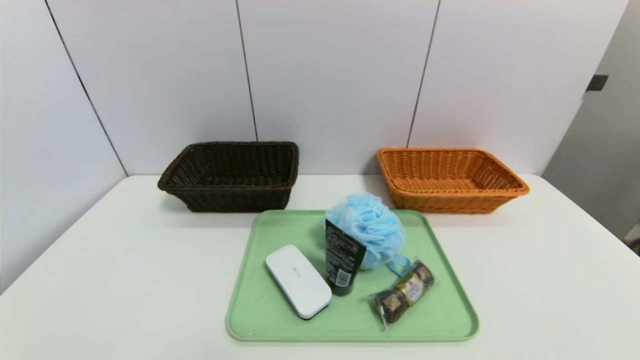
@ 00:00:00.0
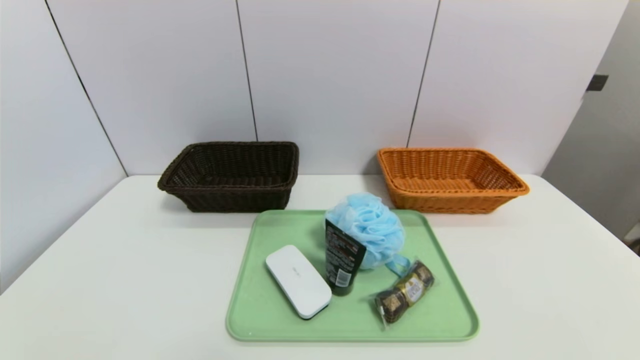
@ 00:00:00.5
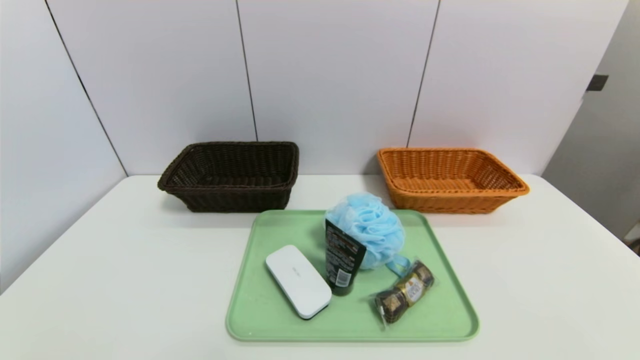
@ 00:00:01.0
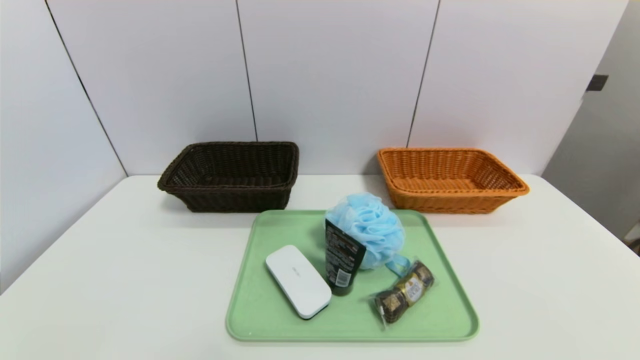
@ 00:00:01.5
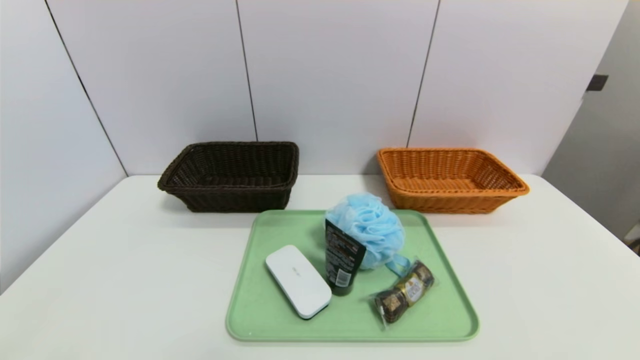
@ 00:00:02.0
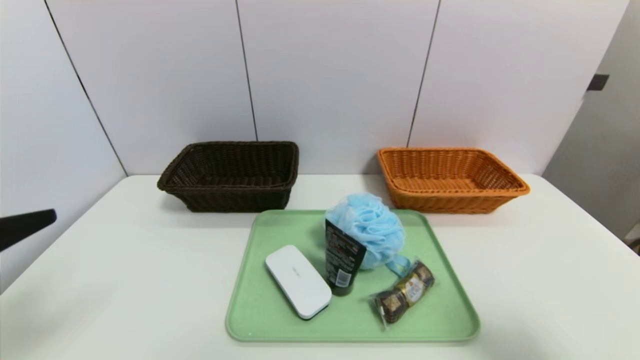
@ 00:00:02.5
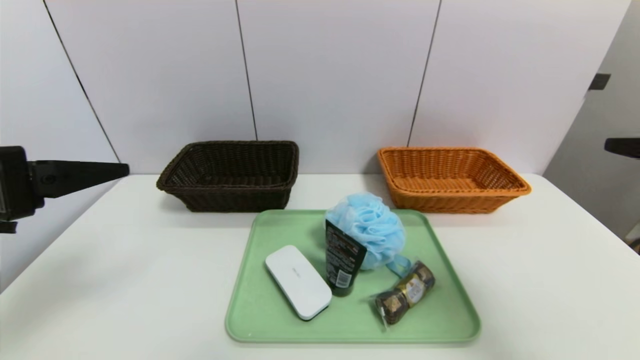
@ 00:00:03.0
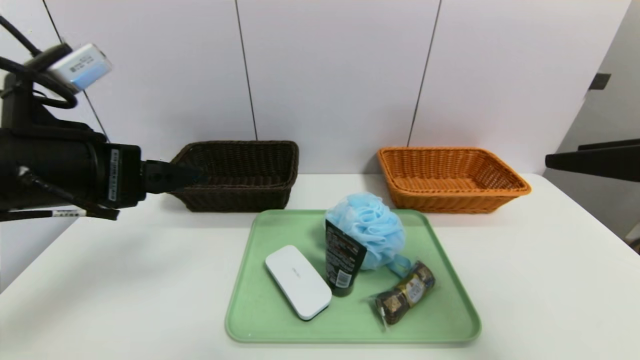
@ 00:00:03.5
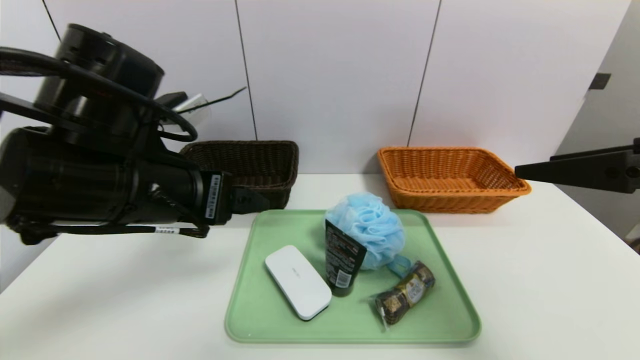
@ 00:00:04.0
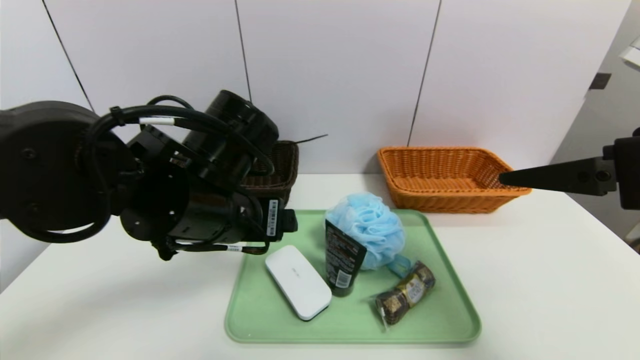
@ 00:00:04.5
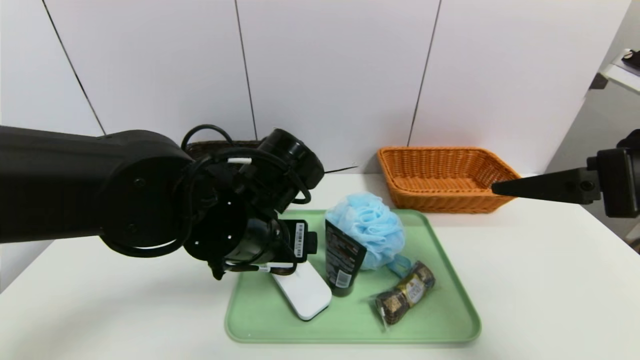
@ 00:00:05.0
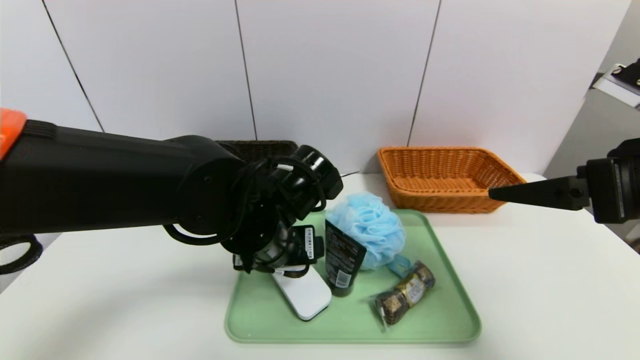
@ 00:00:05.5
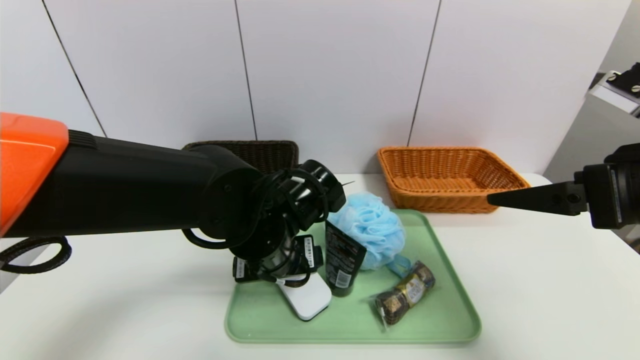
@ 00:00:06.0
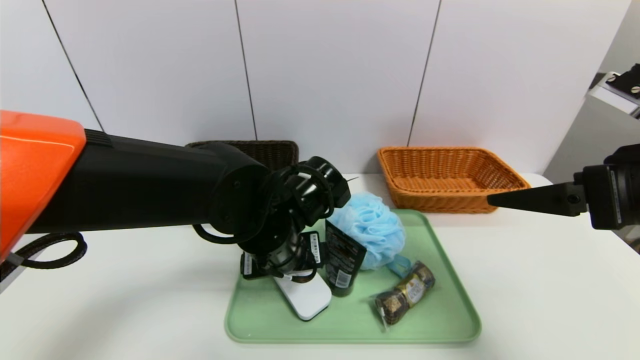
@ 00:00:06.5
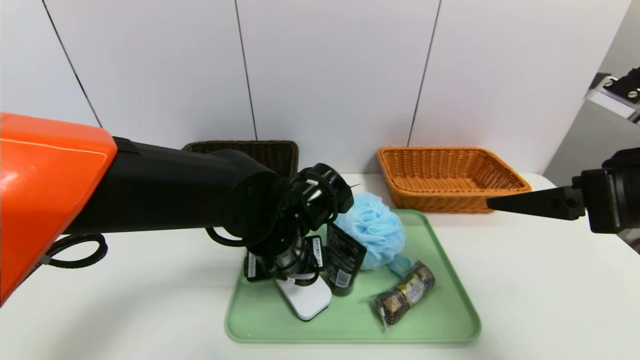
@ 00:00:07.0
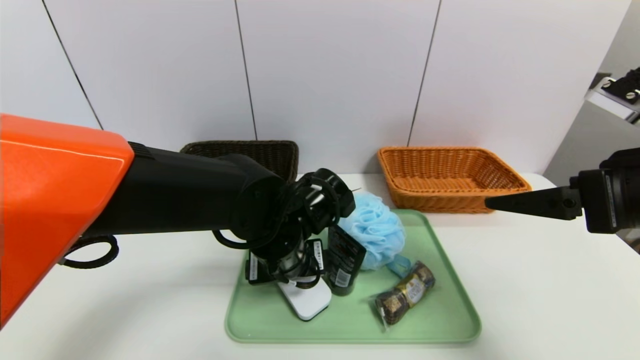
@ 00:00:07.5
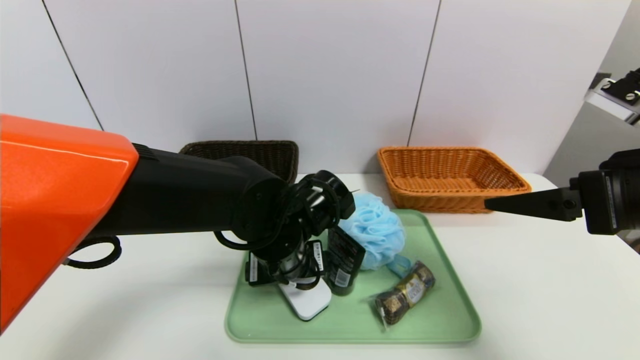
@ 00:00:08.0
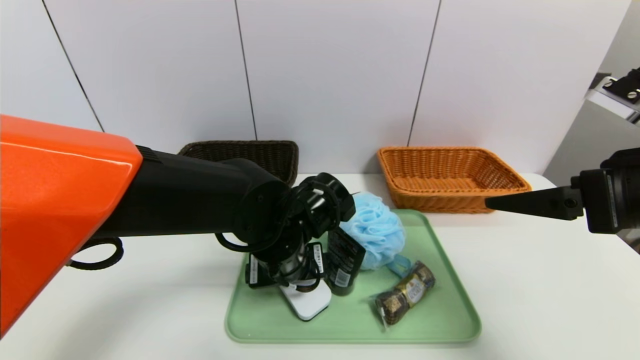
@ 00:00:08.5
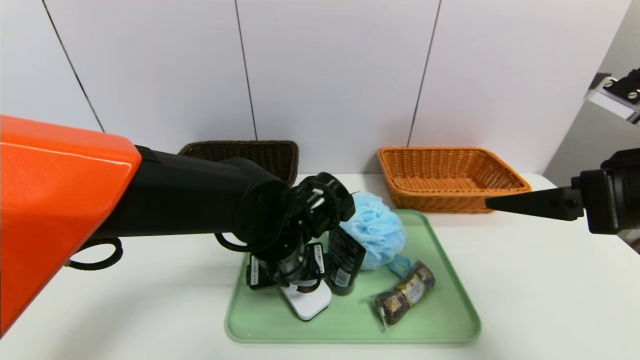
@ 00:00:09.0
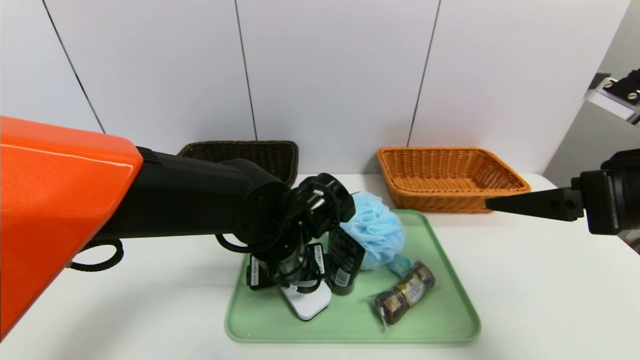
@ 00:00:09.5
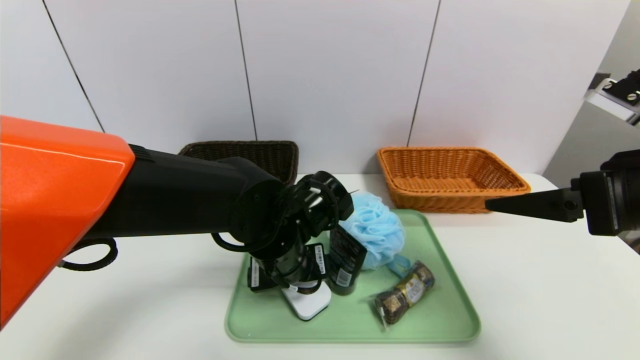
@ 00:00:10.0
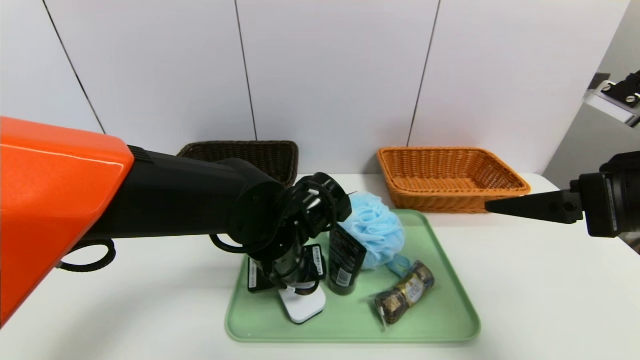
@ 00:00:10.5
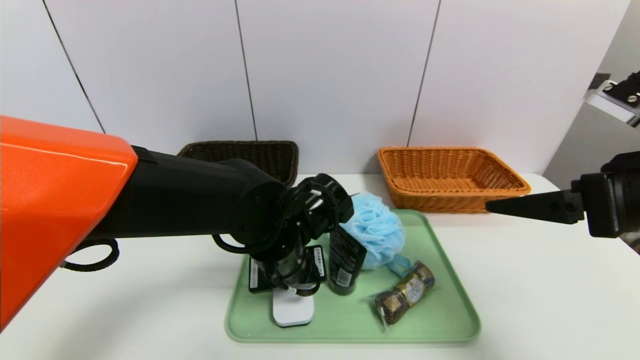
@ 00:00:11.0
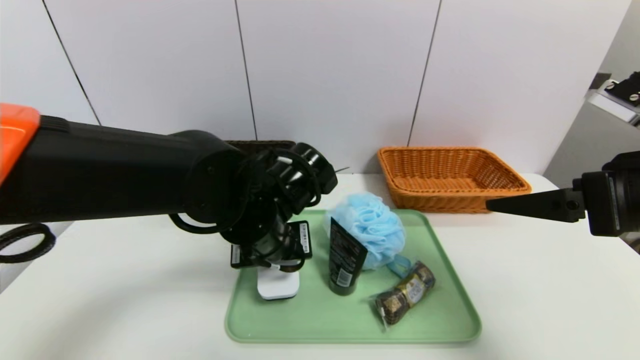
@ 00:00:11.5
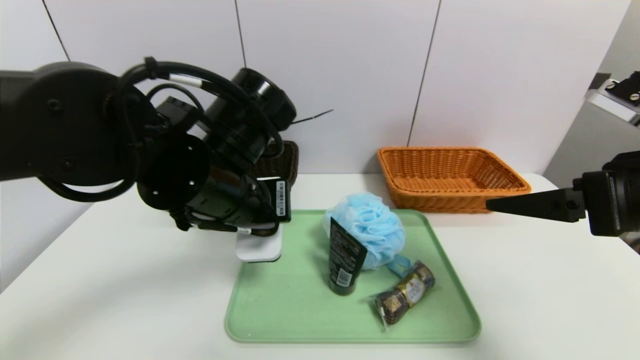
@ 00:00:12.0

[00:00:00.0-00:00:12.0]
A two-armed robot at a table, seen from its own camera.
Task of the whole recording: place the food in the right basket with the right gripper, and place the non food items in the left basket with the left gripper.
00:00:02.0 to 00:00:04.0: The right gripper travels forward and upward by roughly 20 cm. Meanwhile the left gripper travels forward and to the right by some 25 cm.
00:00:04.0 to 00:00:06.0: The left gripper shifts some 15 cm to the right and downward.
00:00:06.0 to 00:00:10.0: The grippers move only a little.
00:00:10.0 to 00:00:12.0: The left gripper goes some 10 cm upward and to the left, and closes up.

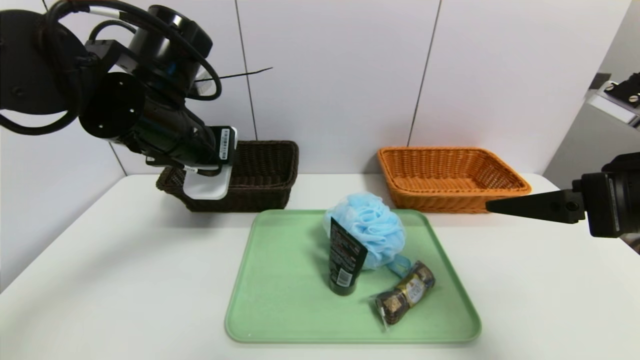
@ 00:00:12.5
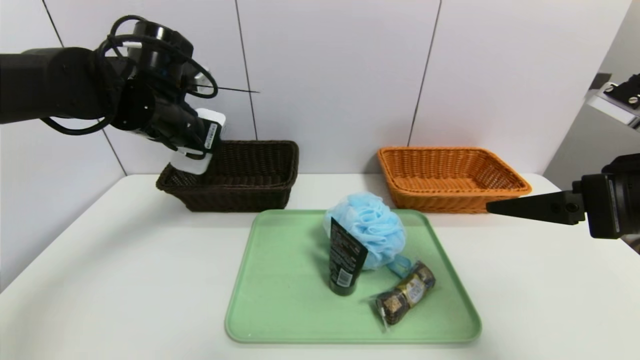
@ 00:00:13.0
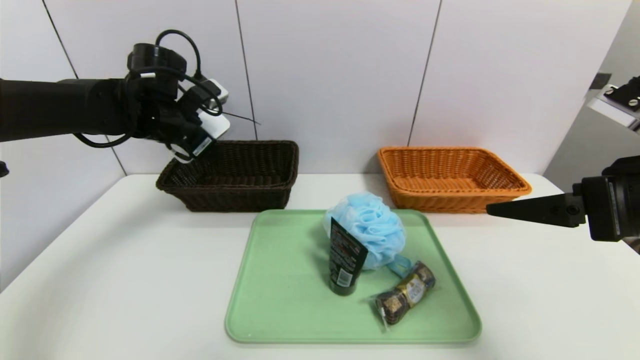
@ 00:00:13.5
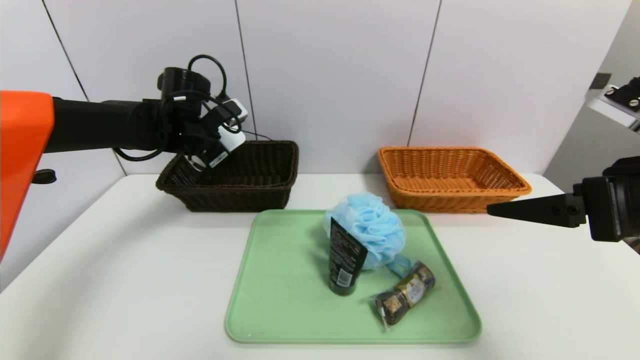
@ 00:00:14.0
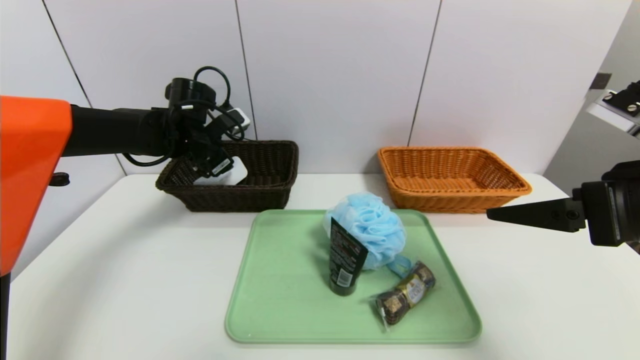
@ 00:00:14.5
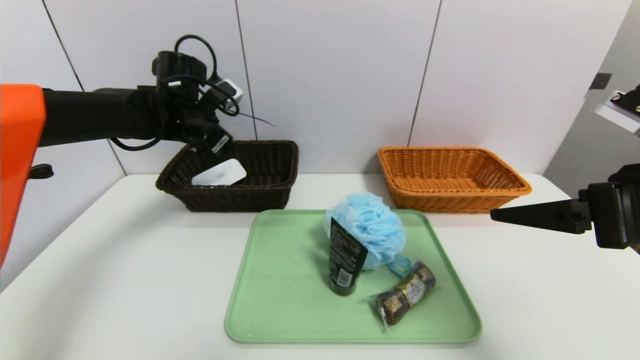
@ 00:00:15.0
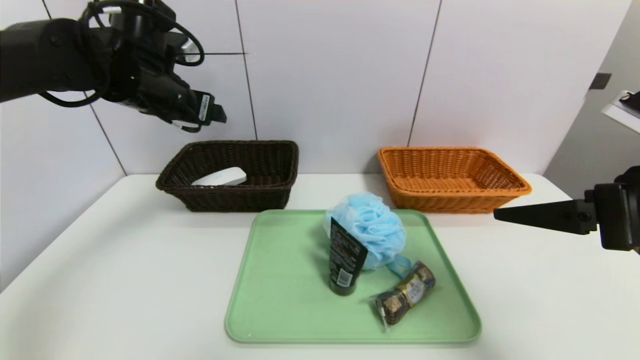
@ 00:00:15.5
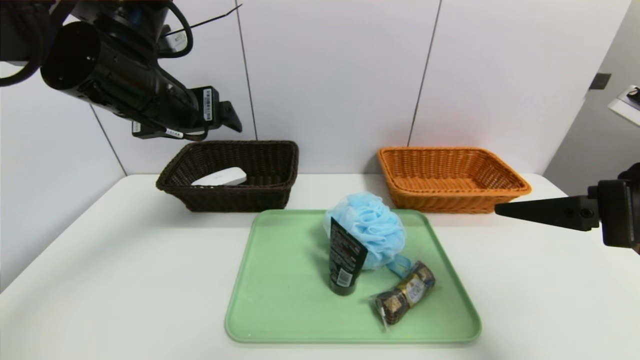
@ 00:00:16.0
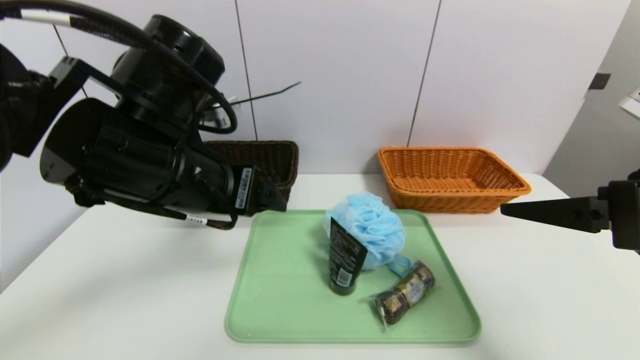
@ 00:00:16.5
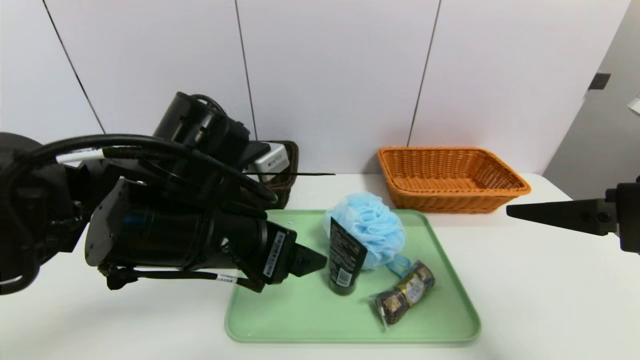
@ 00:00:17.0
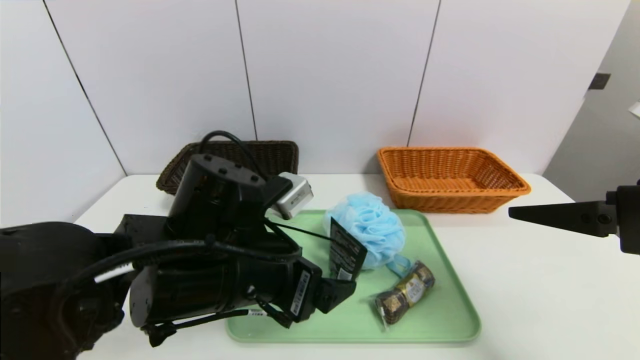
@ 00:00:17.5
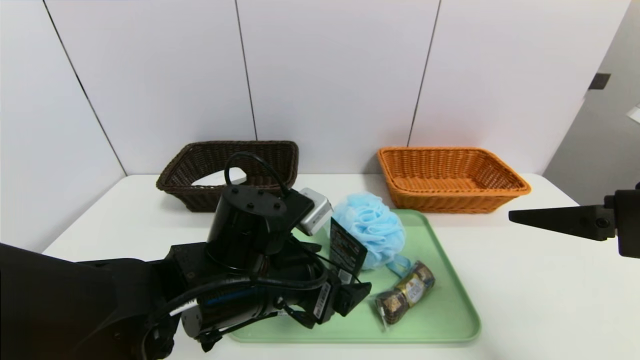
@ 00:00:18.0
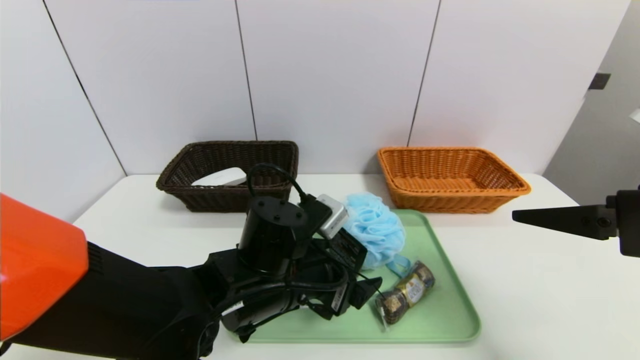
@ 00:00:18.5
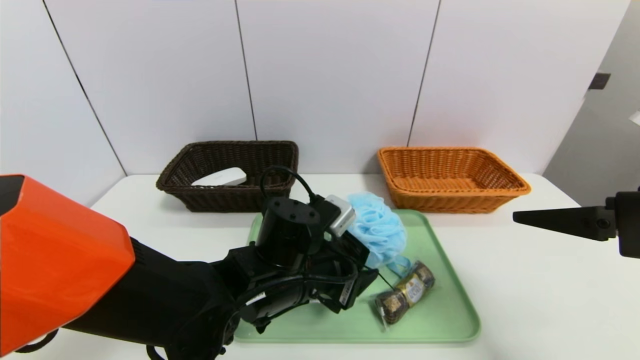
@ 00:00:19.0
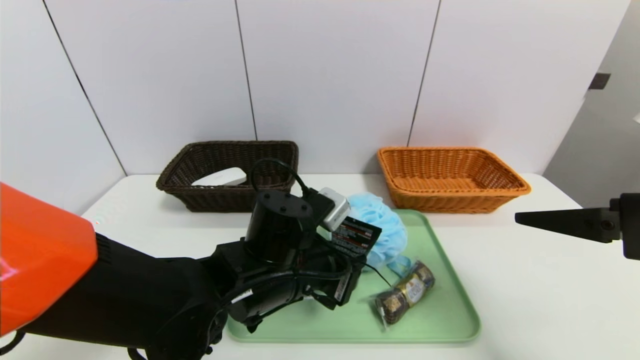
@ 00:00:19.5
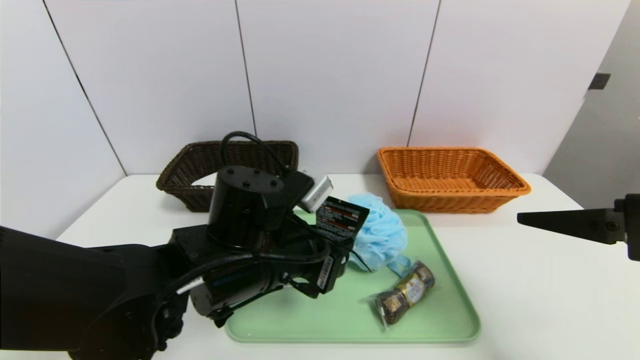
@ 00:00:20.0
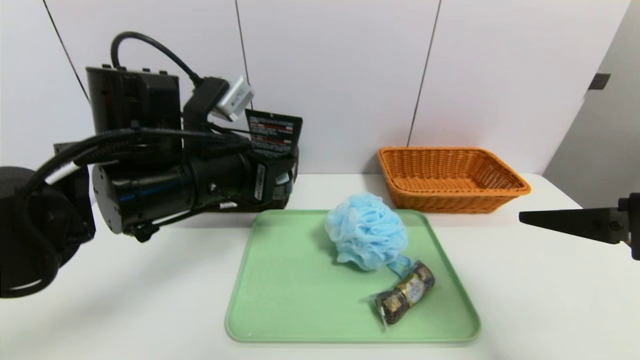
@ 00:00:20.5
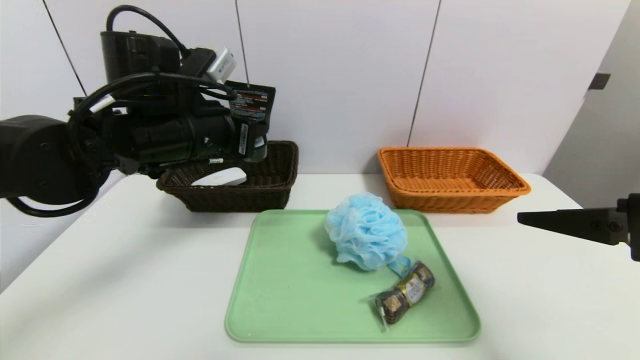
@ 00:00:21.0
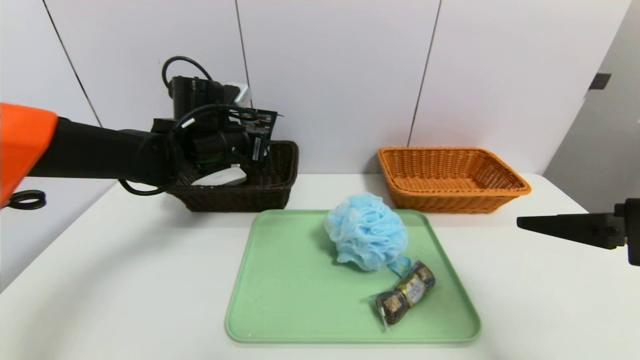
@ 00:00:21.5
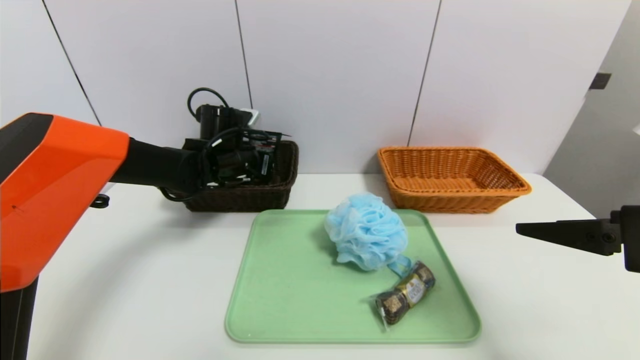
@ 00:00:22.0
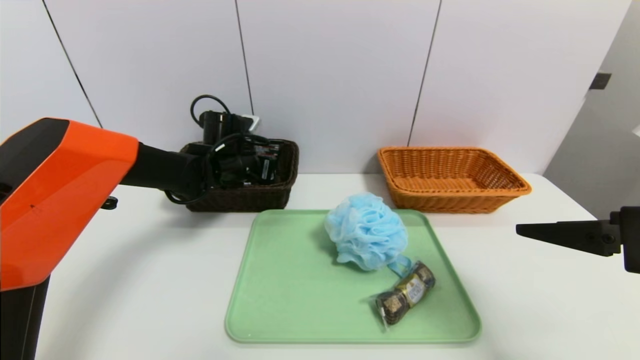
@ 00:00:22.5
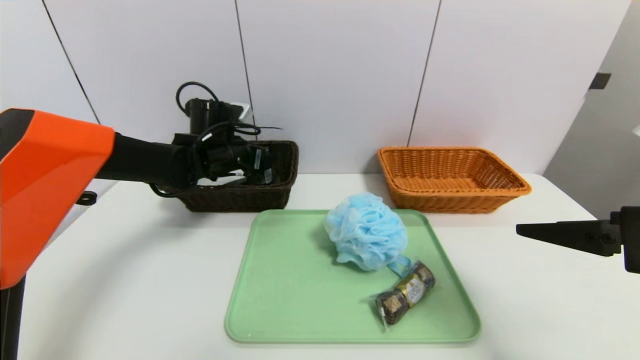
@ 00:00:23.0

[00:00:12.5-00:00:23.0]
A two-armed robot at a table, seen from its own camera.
Task of the whole recording: place the food in the right basket with the right gripper, and place the non food items in the left basket with the left gripper.
Step, 00:00:12.5 to 00:00:14.5: Grasp the white eraser and put it in the left basket.
Step, 00:00:15.0 to 00:00:23.0: Grasp the soft cleanser and put it in the left basket.
00:00:12.5 to 00:00:14.5: The left gripper heads forward and downward, covering approximately 15 cm.
00:00:14.5 to 00:00:16.5: The left gripper is displaced backward by some 20 cm.
00:00:16.5 to 00:00:19.0: The left gripper goes about 20 cm downward and to the right, and closes its fingers.
00:00:19.0 to 00:00:21.0: The left gripper goes approximately 20 cm upward, to the left and forward, and closes.
00:00:21.0 to 00:00:23.0: The left gripper heads forward and downward, covering some 15 cm, and opens up.